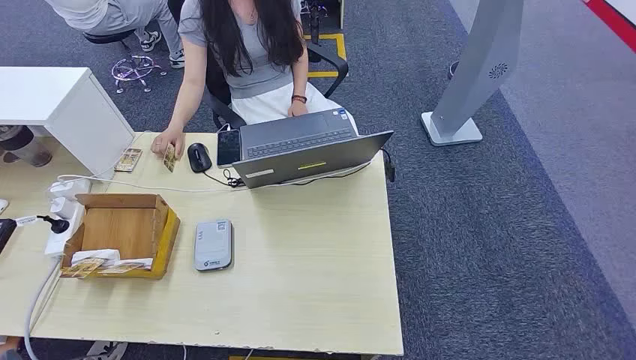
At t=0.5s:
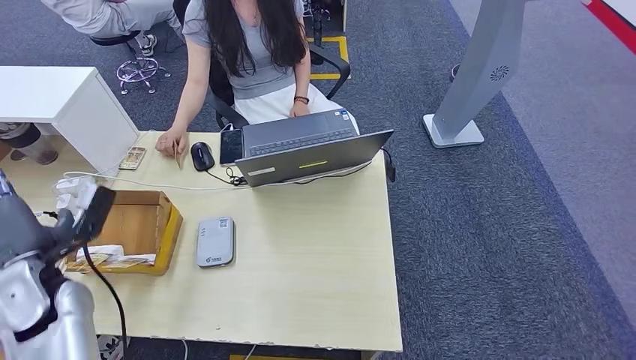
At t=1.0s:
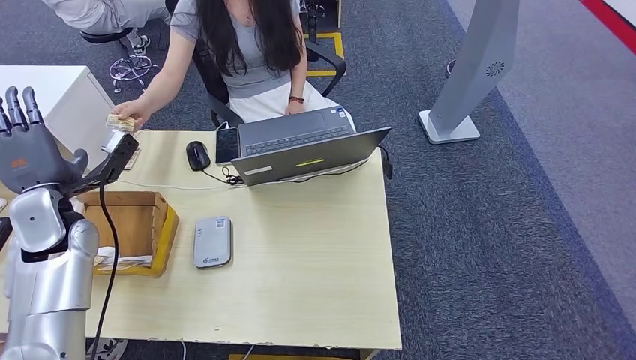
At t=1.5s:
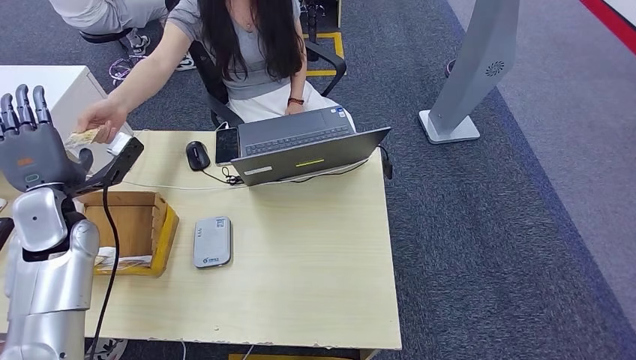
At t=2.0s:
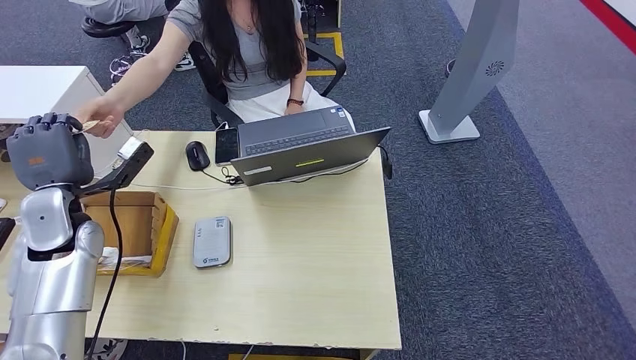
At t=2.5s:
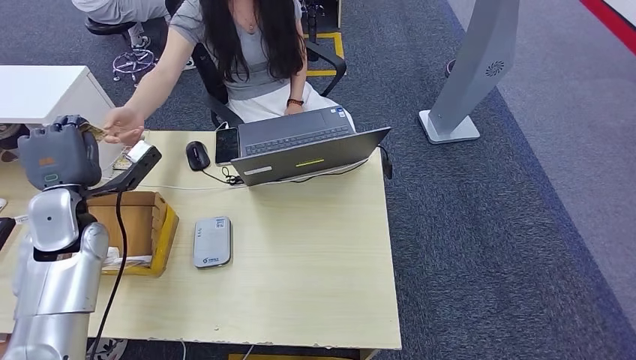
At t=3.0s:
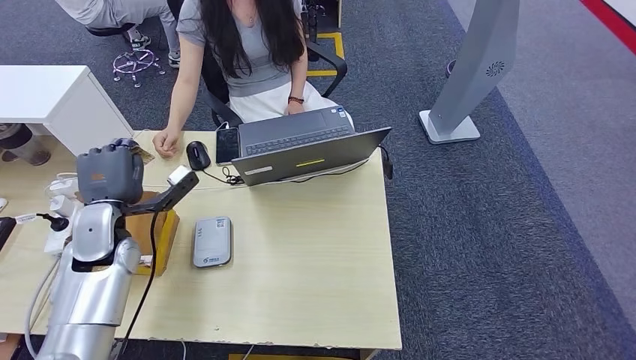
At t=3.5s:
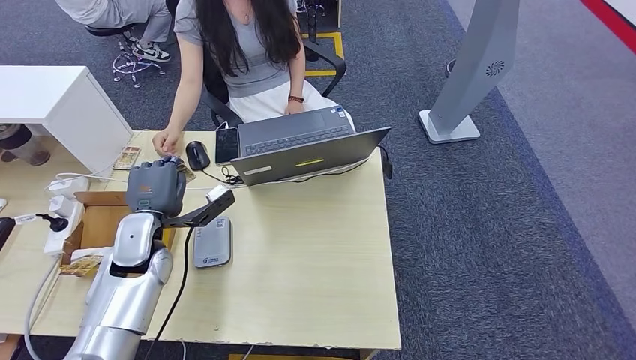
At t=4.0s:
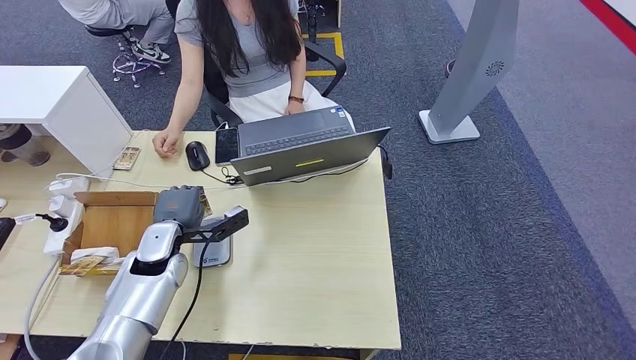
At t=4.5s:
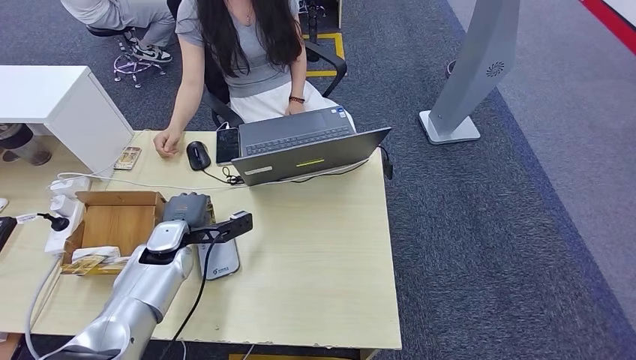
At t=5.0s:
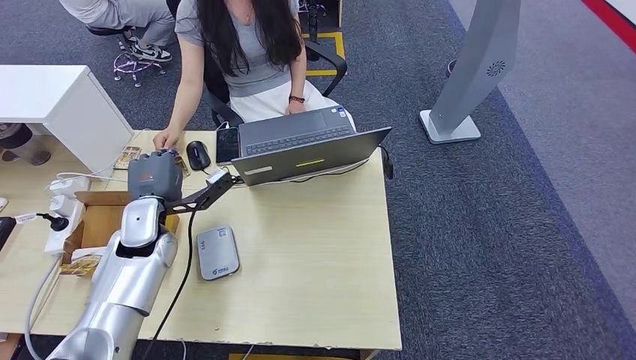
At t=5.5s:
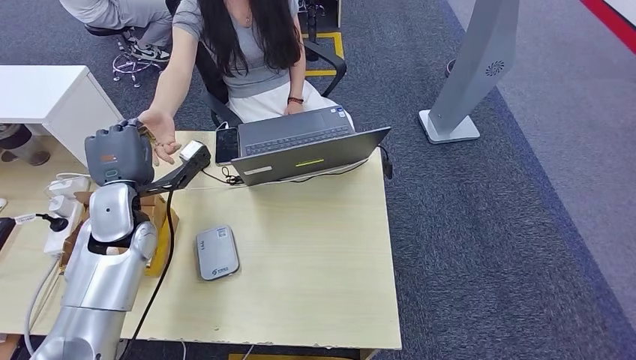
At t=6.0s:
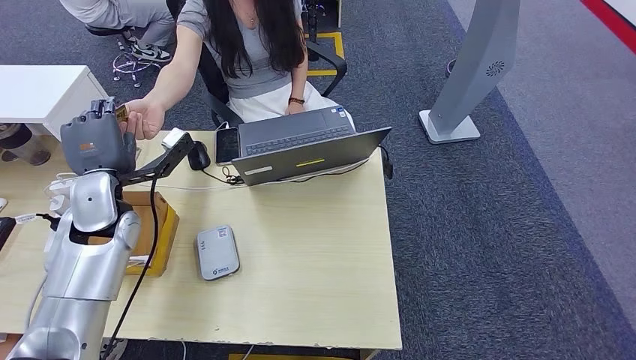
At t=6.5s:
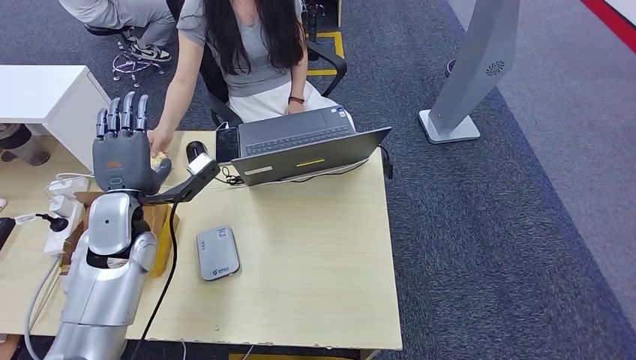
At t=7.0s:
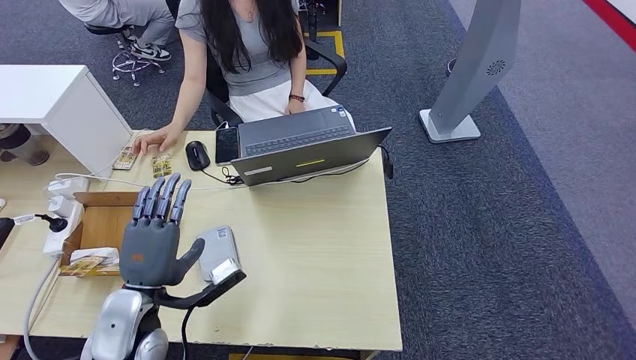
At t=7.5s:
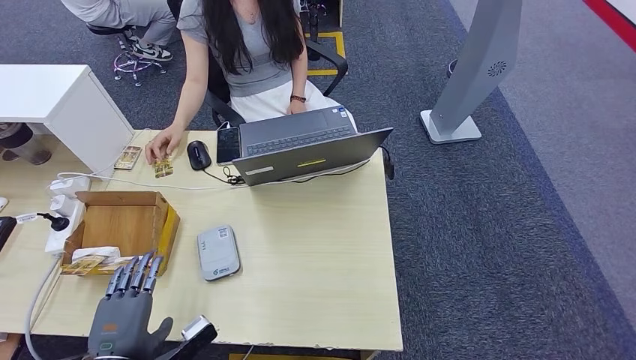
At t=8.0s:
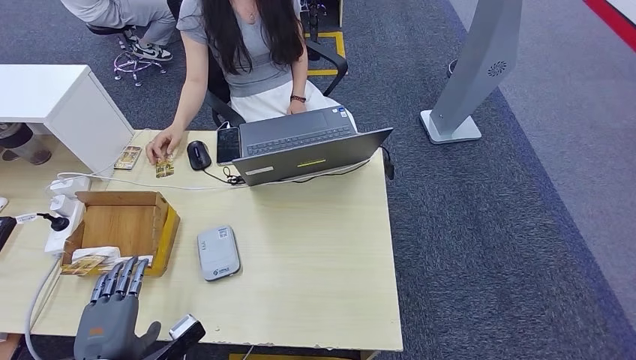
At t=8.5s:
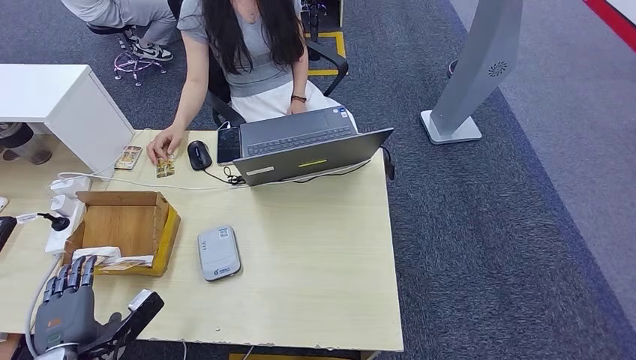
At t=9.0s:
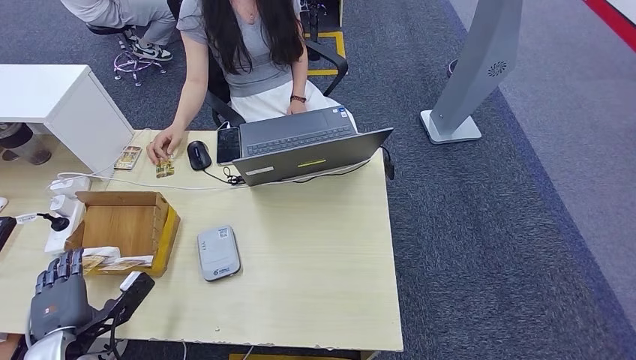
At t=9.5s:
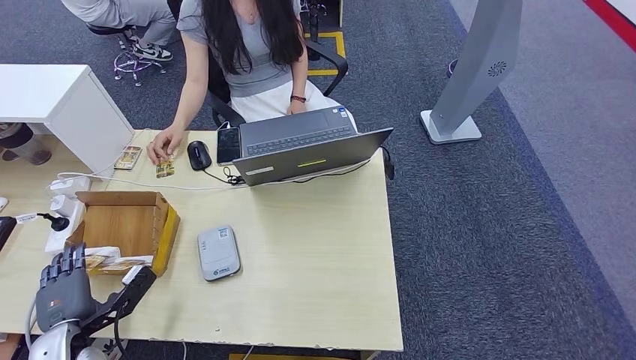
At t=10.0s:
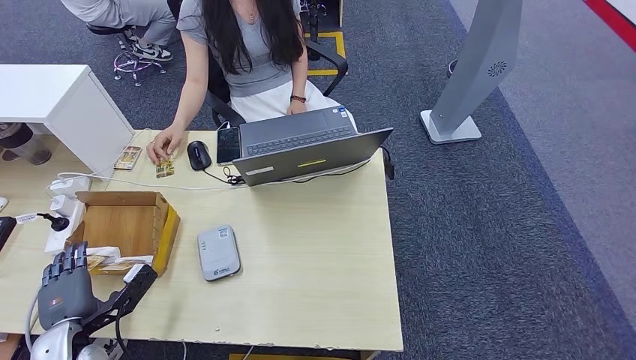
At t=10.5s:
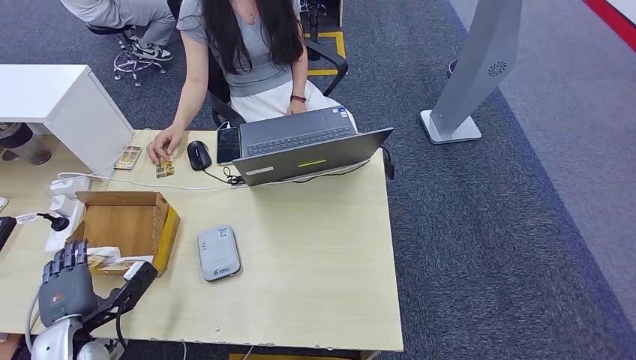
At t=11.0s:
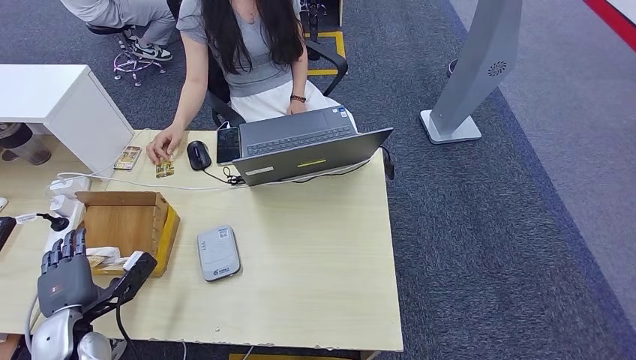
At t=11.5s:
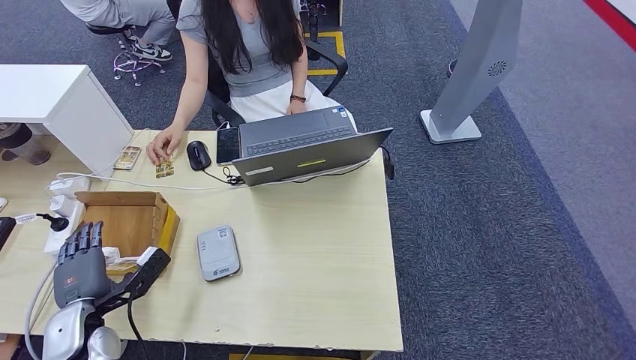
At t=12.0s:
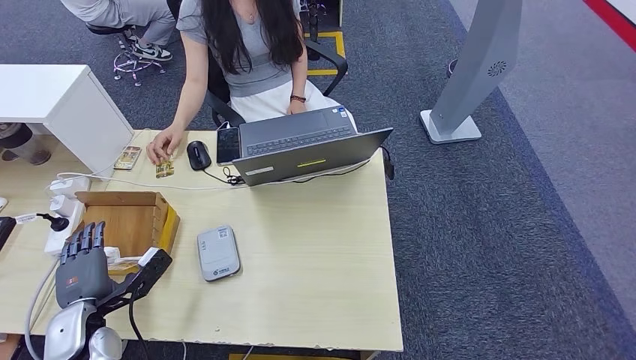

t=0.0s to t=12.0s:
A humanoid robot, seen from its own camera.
Step, t=0.0s to t=2.5s: Take the ID card from the person's hand.
Step, t=3.0s to t=5.5s: Place the ID card on the card reader.
Step, t=6.0s to t=7.5s: Hand the ID card to the person.
t=2.0s to t=4.0s: The left hand goes roughly 15 cm to the right and downward.
t=4.0s to t=6.0s: The left hand goes approximately 10 cm upward.
t=6.0s to t=8.0s: The left hand shifts some 30 cm backward and downward.
t=8.0s to t=10.0s: The left hand heads to the left and forward, covering about 10 cm.
t=10.0s to t=12.0s: The hands move only a little.

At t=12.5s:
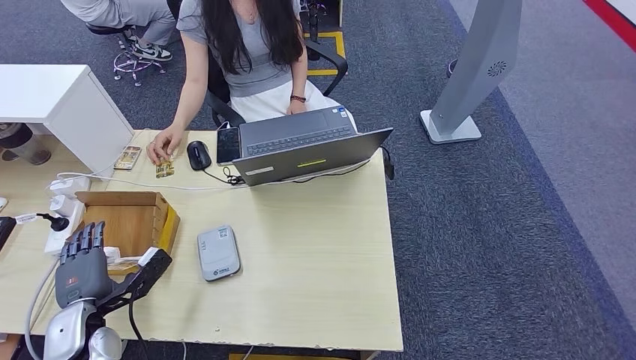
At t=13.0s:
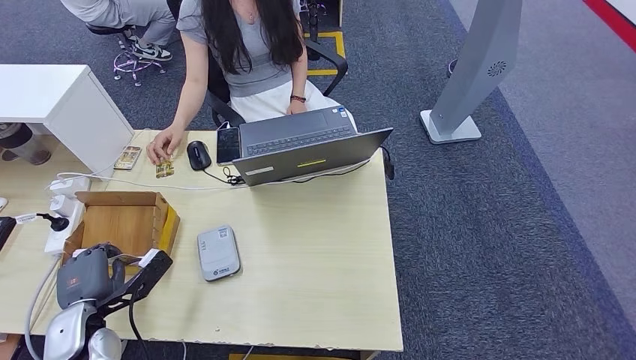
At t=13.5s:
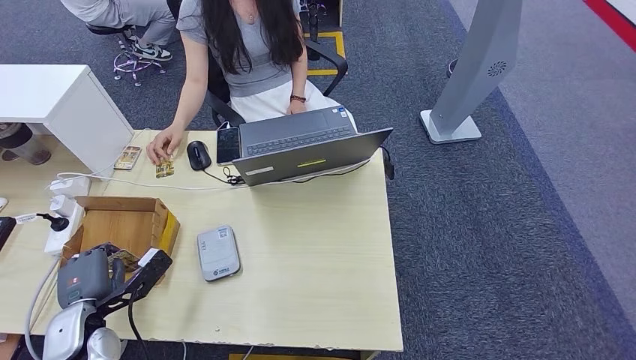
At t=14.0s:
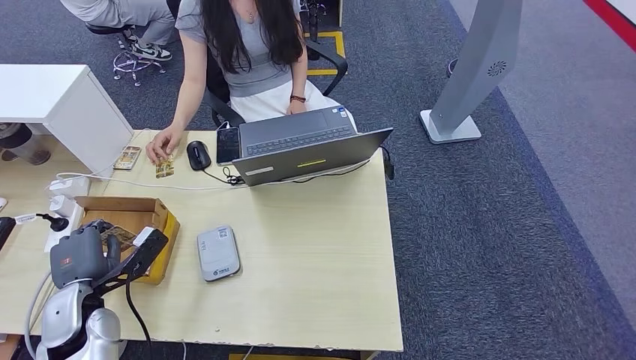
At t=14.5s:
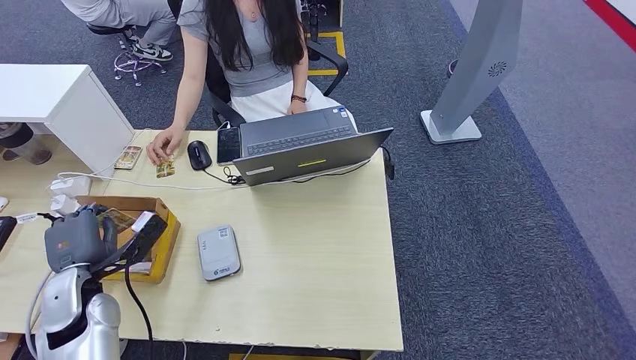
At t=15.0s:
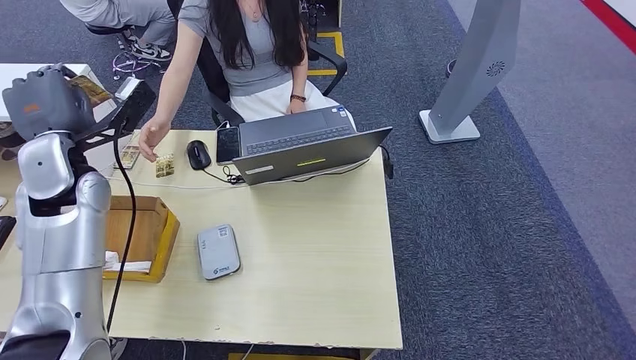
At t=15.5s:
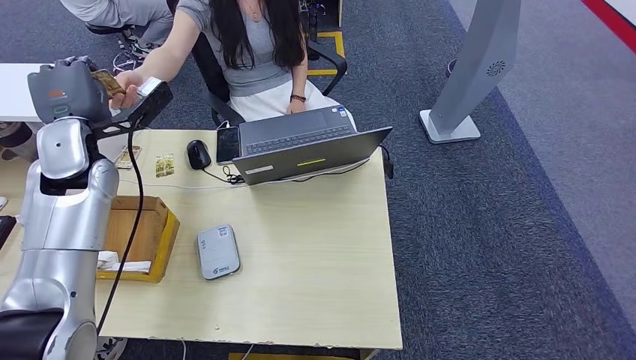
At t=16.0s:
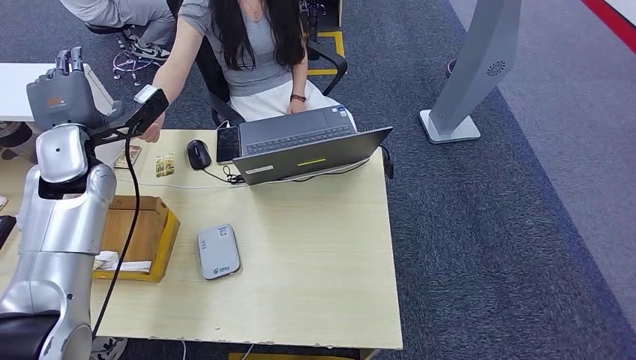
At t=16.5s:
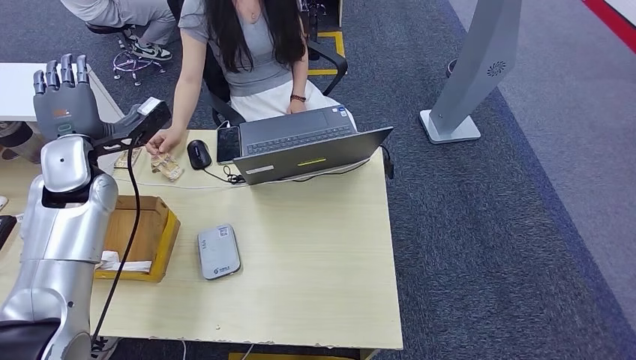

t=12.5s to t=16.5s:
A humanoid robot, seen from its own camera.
Step, t=14.0s to t=16.5s: Hand the room key to the person.
t=12.5s to t=14.5s: The left hand changes place by some 5 cm.
t=14.5s to t=16.5s: The left hand is displaced forward and upward by about 20 cm.
